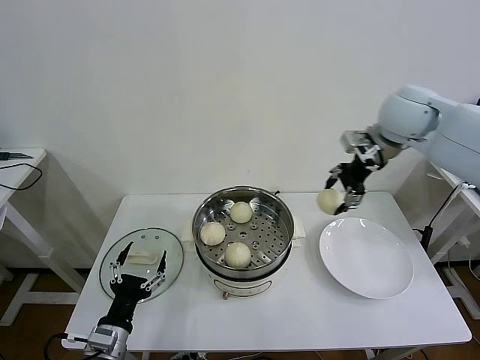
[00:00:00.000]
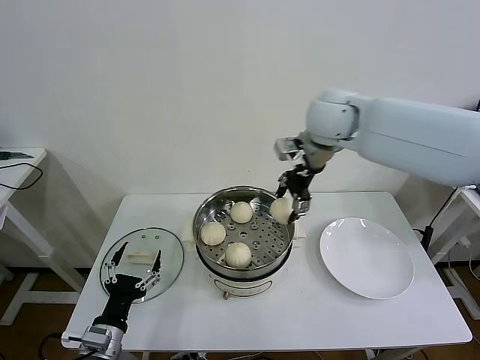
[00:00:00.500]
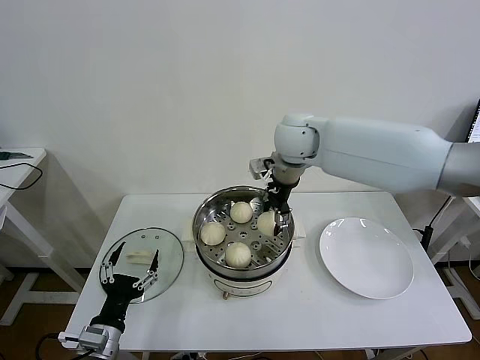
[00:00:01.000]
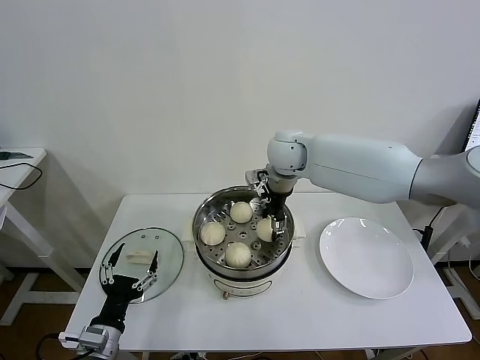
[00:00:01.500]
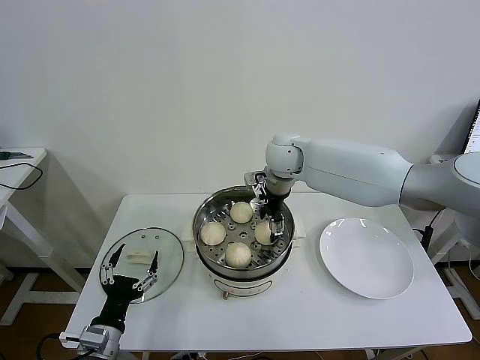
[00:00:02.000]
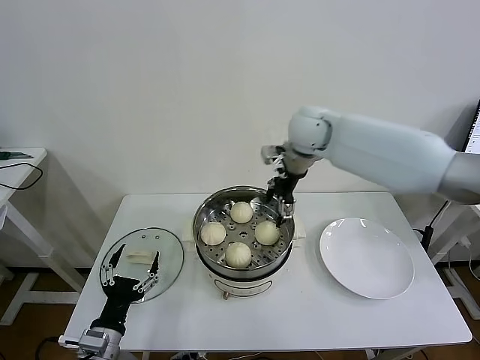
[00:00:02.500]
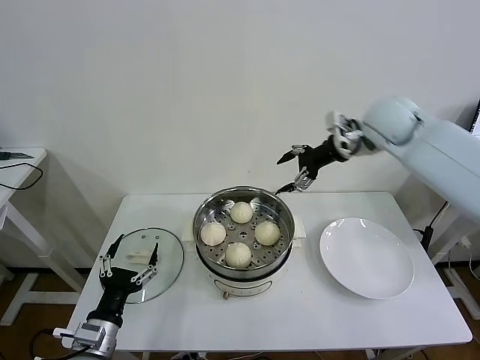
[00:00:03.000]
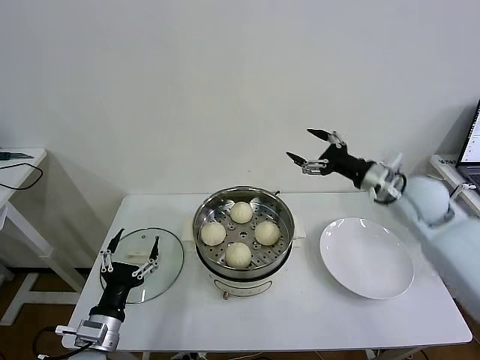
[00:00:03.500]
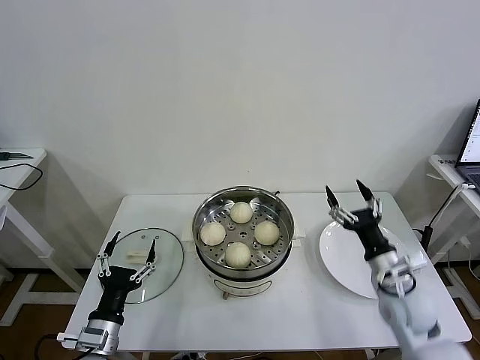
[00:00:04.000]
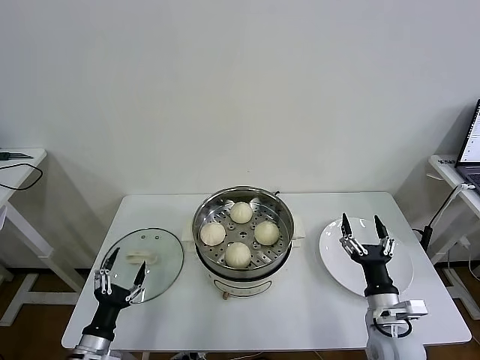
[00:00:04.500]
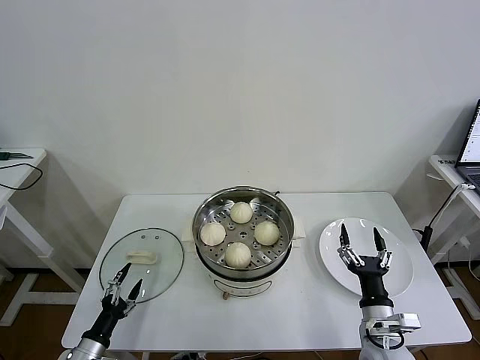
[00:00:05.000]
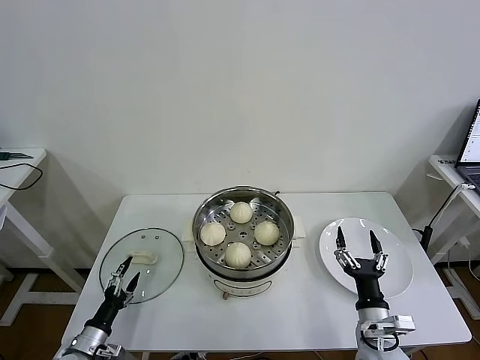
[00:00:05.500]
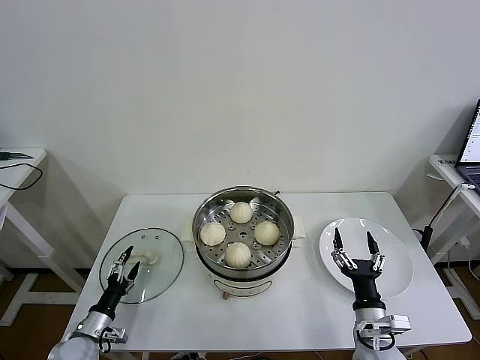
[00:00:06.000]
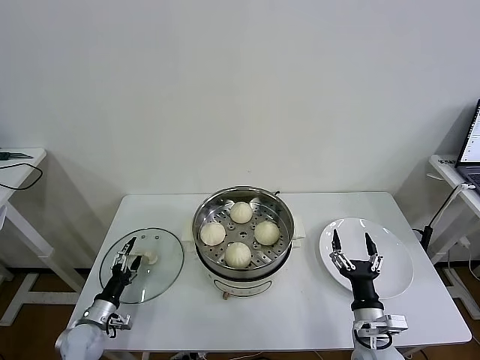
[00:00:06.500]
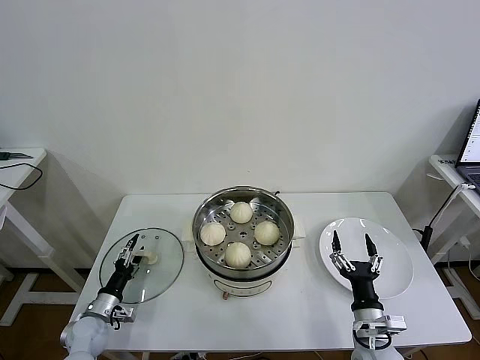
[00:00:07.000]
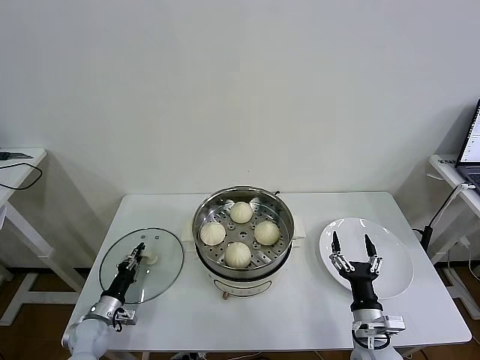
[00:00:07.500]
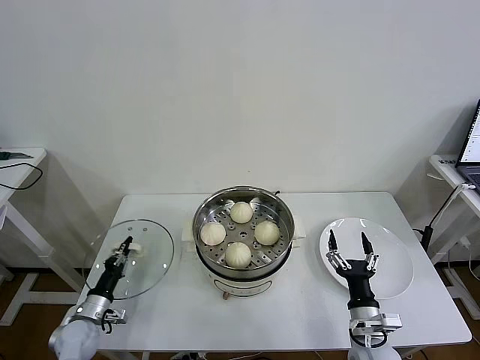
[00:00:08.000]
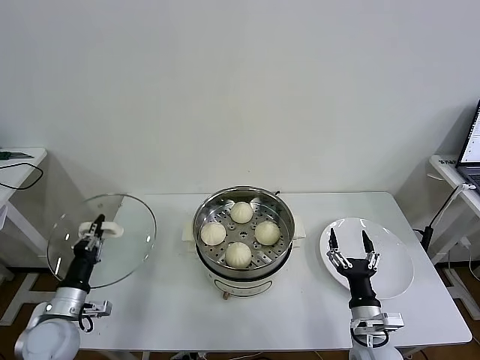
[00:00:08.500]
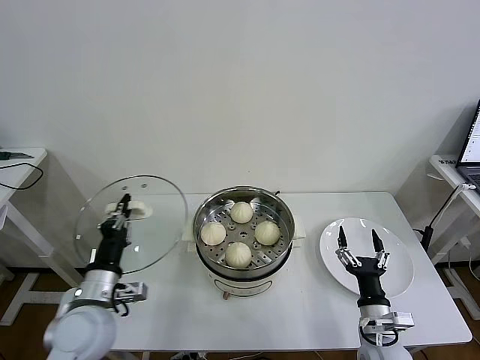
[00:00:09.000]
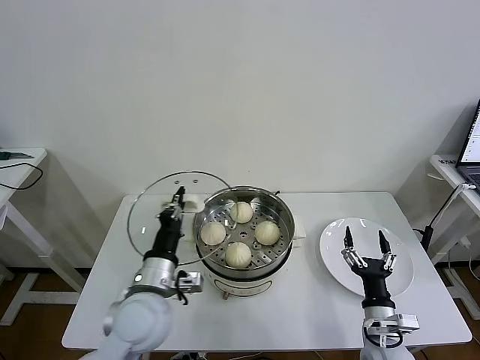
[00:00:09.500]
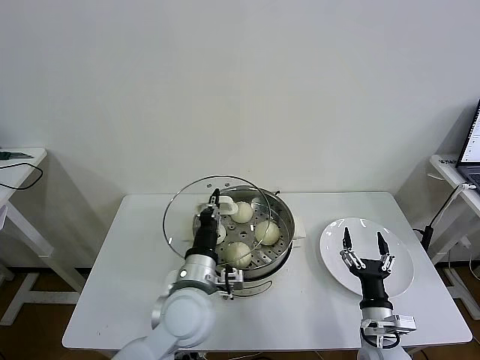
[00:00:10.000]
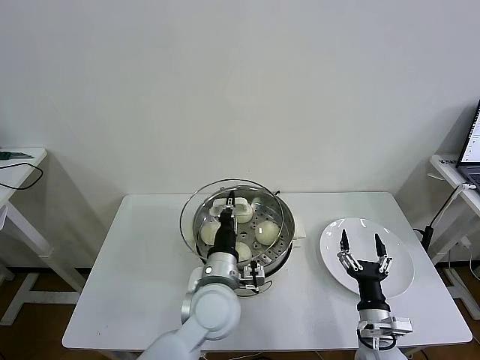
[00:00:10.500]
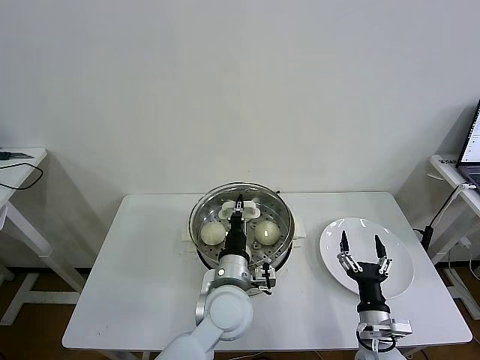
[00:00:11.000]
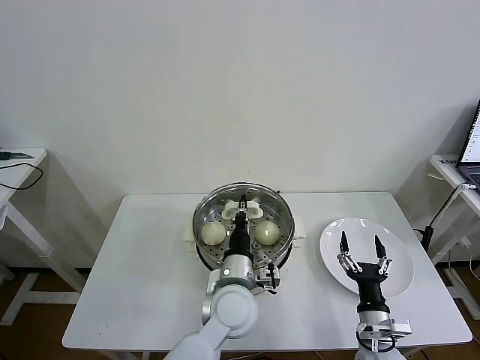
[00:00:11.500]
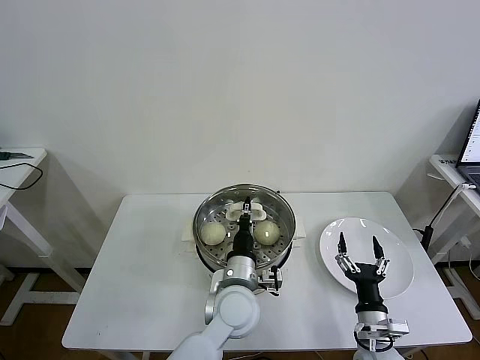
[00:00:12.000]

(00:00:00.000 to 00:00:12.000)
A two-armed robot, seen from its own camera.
Task of the whole recording: take steamed baozi put them in steamer then cover it.
Step, 00:00:00.000 - 00:00:02.000: Place the baozi on the steamer with right gripper.
Step, 00:00:02.500 - 00:00:07.500: Grasp the pot lid with left gripper.
00:00:00.000 - 00:00:02.000: The right gripper is displaced to the left and downward by about 25 cm, and opens up.
00:00:02.000 - 00:00:04.000: The right gripper moves backward, to the right and downward, approximately 40 cm, and opens.
00:00:04.000 - 00:00:06.000: The right gripper goes about 15 cm downward, backward and to the left. The left gripper heads downward, to the left and forward, covering some 20 cm.
00:00:06.000 - 00:00:08.000: The left gripper closes its fingers.
00:00:08.000 - 00:00:10.000: The left gripper moves to the right and upward, about 35 cm.
00:00:10.000 - 00:00:12.000: The left gripper shifts about 10 cm to the right and downward.

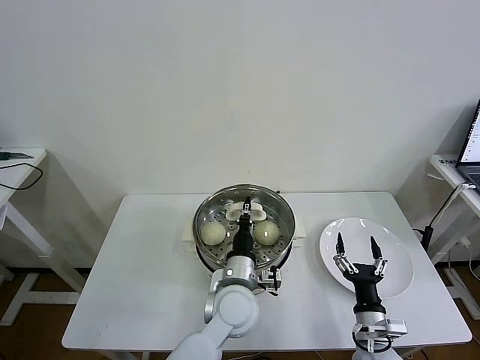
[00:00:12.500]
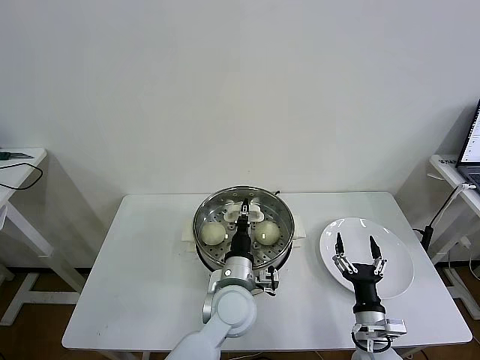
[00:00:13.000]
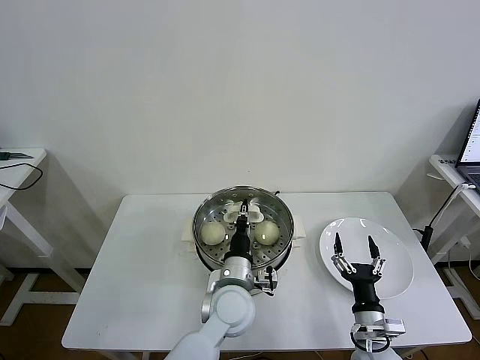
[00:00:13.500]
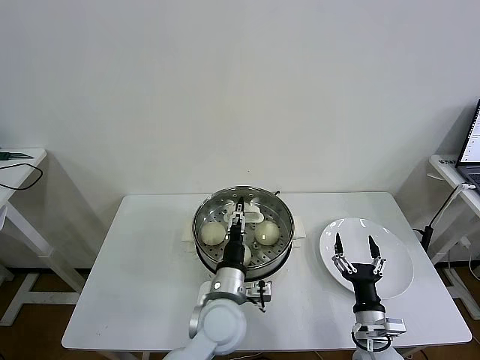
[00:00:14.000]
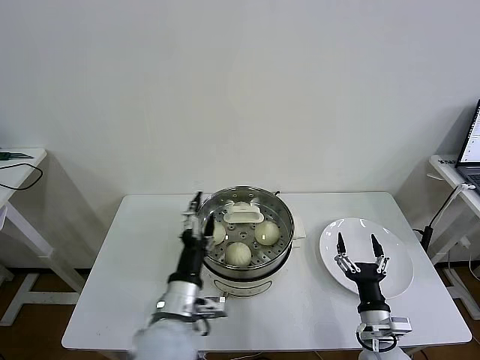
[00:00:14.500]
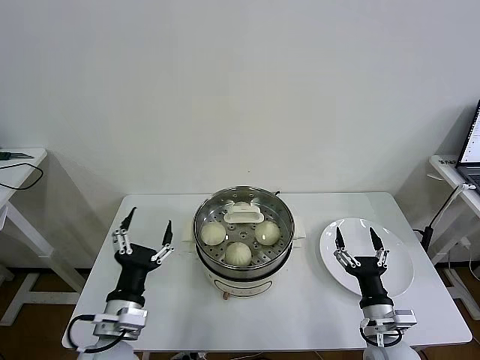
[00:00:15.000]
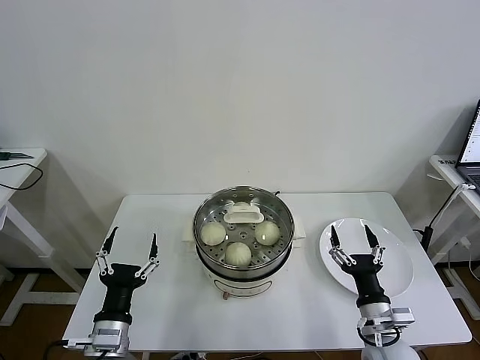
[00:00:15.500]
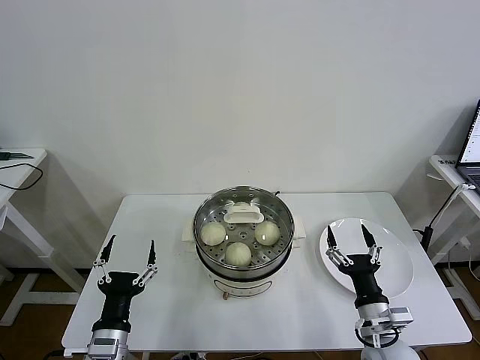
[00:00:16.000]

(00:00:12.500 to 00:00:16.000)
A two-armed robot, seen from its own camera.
Task of the whole recording: take steamed baozi put them in steamer then cover it.
00:00:12.500 - 00:00:14.500: The left gripper heads to the left and backward, covering some 10 cm, and opens up.
00:00:14.500 - 00:00:16.000: The right gripper is displaced upward by roughly 5 cm. The left gripper moves to the left and backward, approximately 15 cm.
